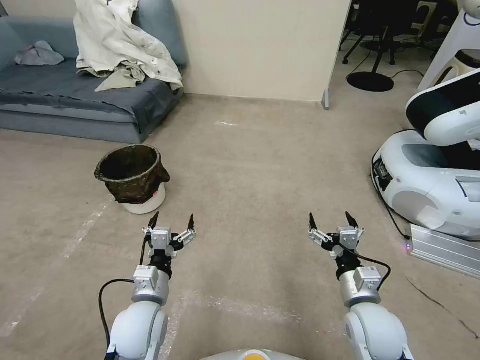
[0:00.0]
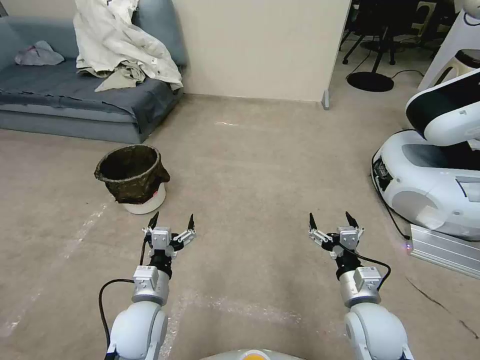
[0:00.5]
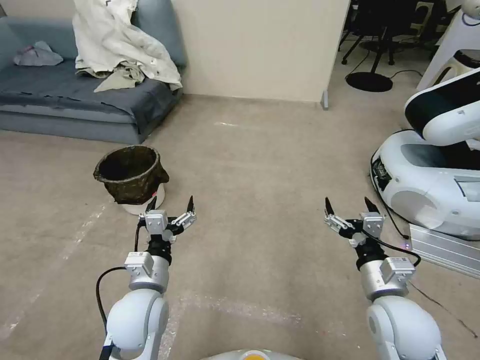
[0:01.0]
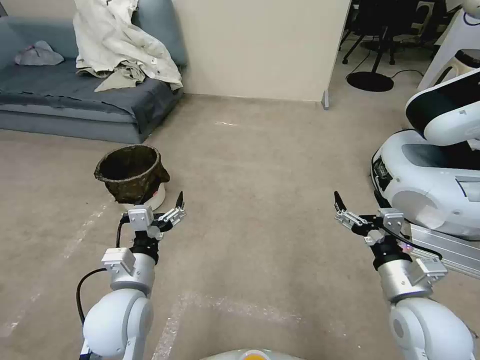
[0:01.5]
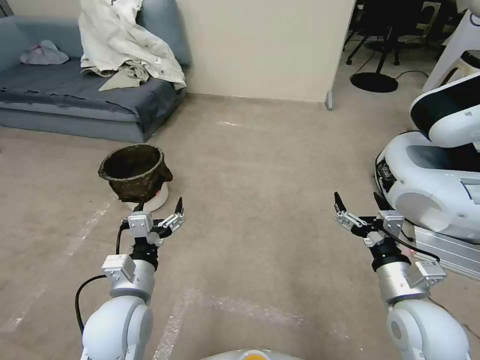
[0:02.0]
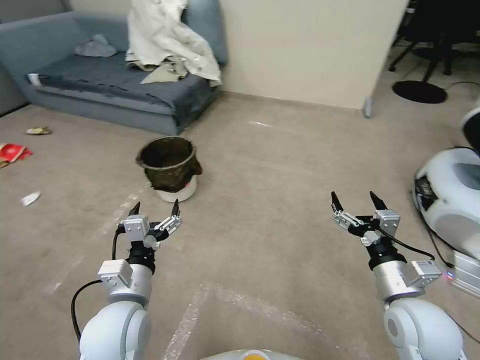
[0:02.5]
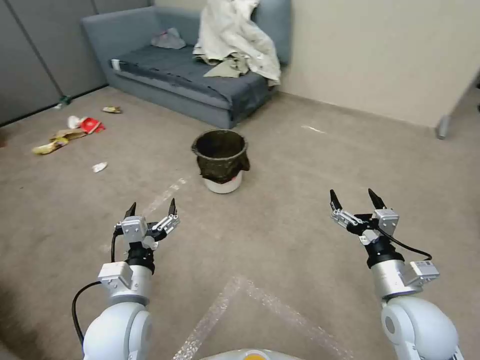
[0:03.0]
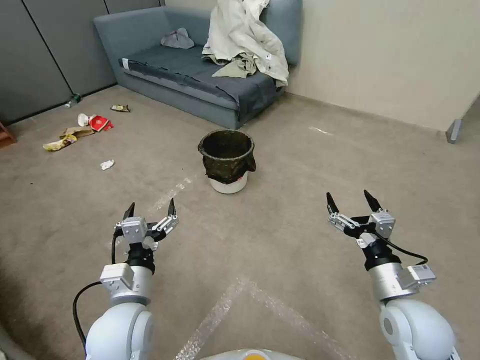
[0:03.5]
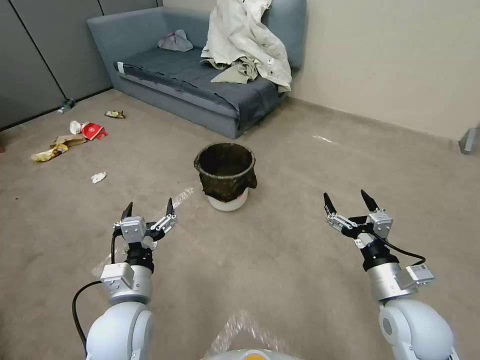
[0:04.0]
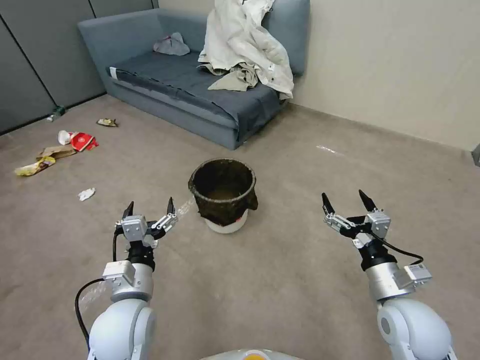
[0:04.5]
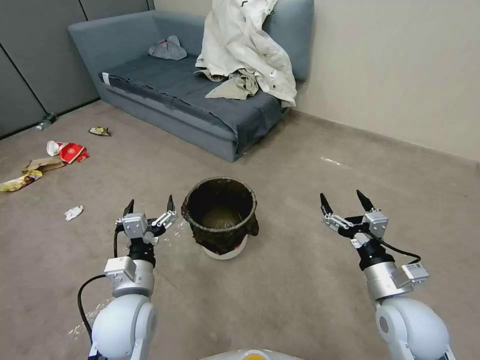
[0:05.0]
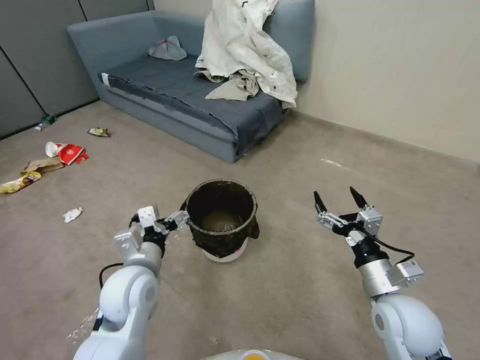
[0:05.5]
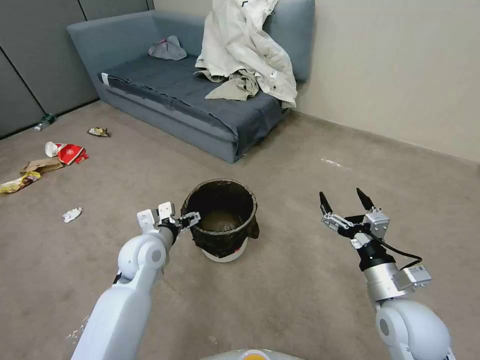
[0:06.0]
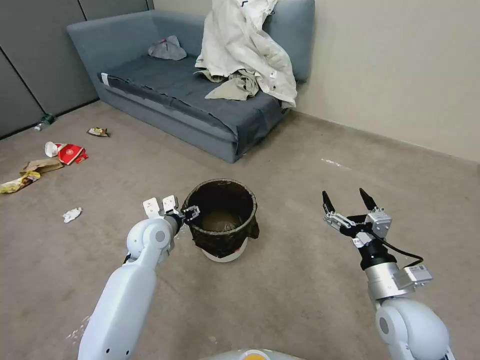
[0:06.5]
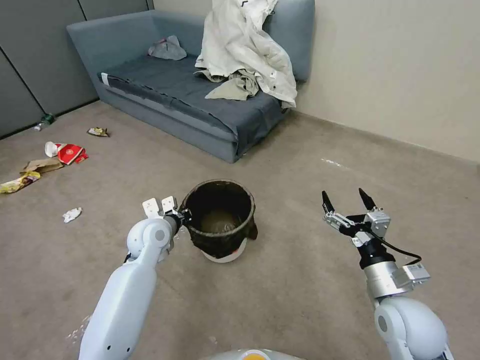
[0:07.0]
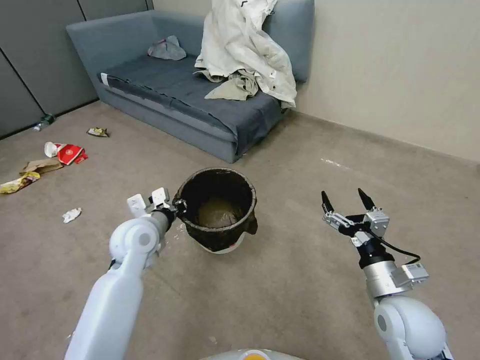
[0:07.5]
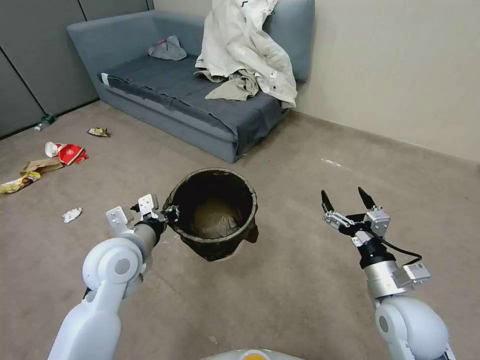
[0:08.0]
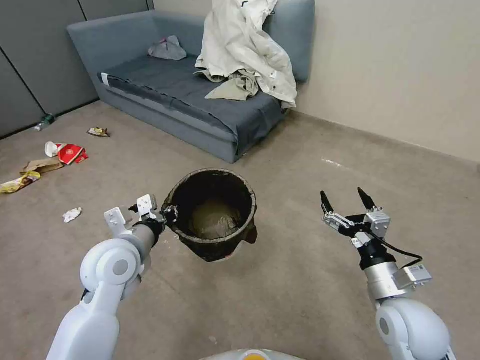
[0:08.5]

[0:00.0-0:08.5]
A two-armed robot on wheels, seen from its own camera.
Task of the whole recording: Pick up the trash can from the floor.
0:04.0 to 0:06.5: The left gripper shifts about 20 cm forward, and closes.
0:06.5 to 0:08.5: The left gripper heads backward and upward, covering about 15 cm, and closes its fingers.

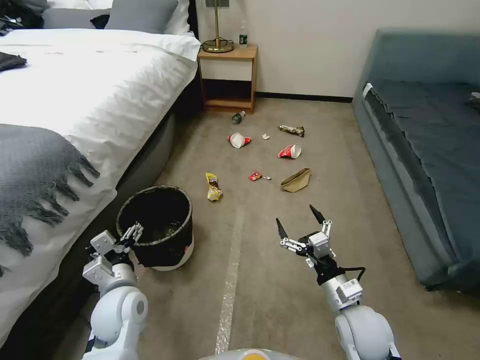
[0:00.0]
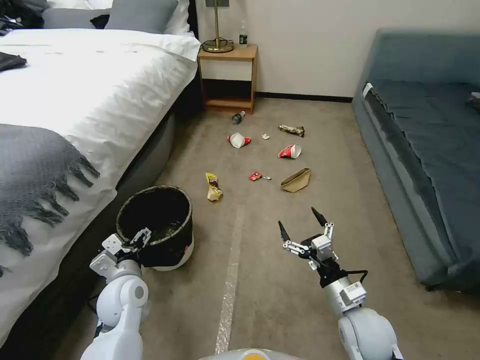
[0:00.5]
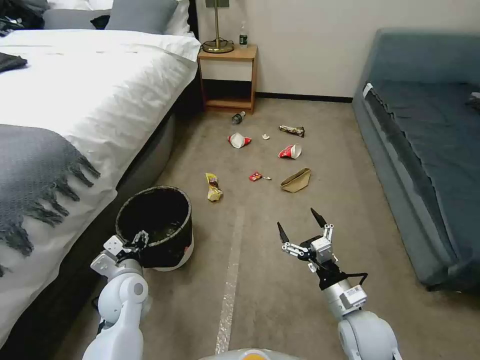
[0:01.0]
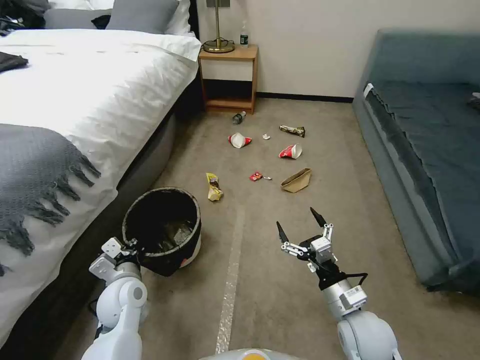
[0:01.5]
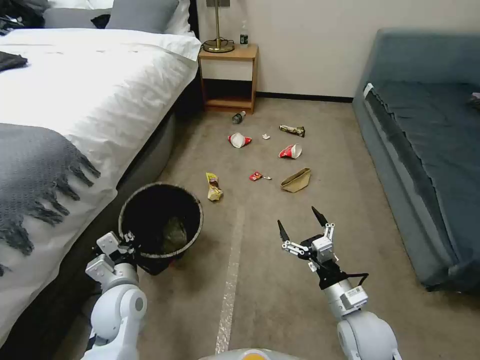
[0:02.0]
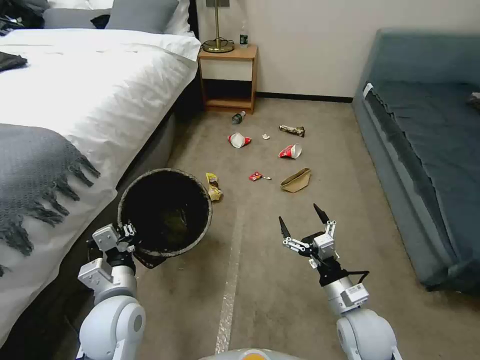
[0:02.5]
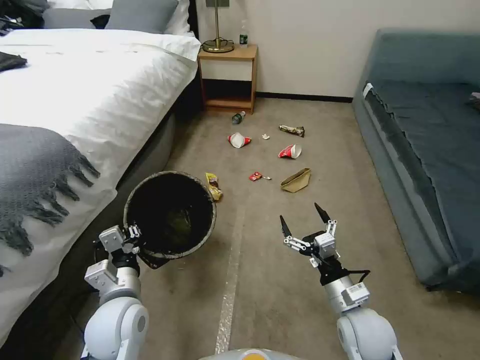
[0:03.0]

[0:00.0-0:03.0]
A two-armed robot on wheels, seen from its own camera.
Task of the whole recording: Pick up the trash can from the floor.
0:00.0 to 0:01.5: The left gripper closes up.
0:01.5 to 0:03.0: The left gripper moves upward and backward, approximately 10 cm.
